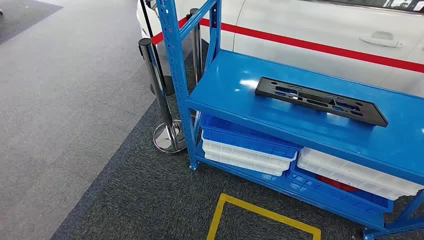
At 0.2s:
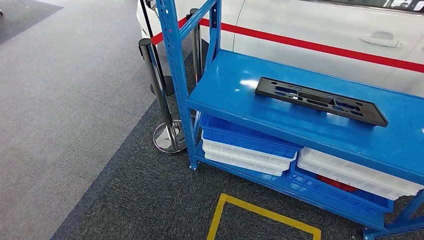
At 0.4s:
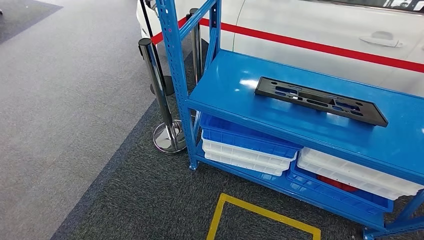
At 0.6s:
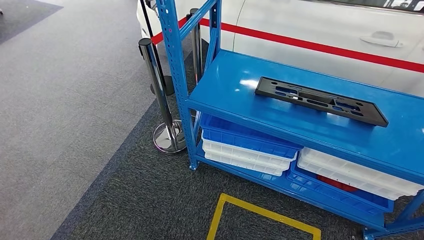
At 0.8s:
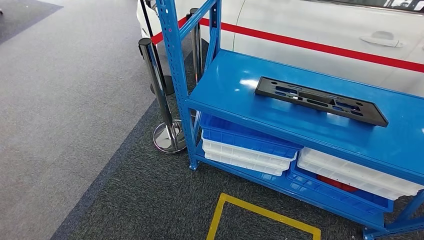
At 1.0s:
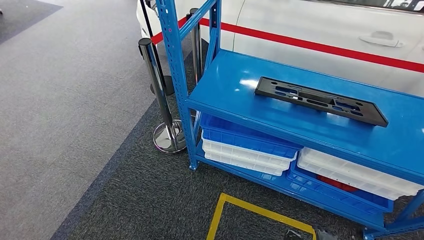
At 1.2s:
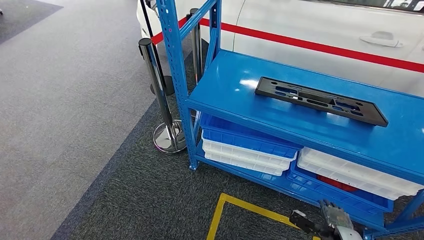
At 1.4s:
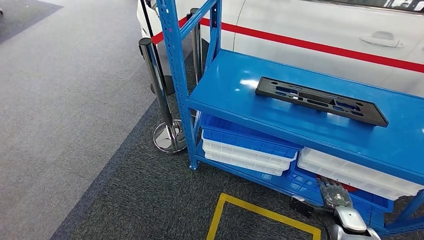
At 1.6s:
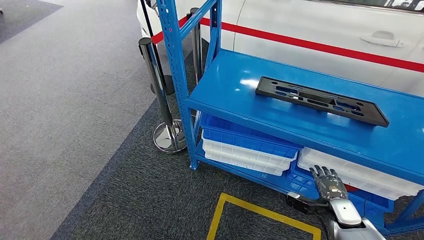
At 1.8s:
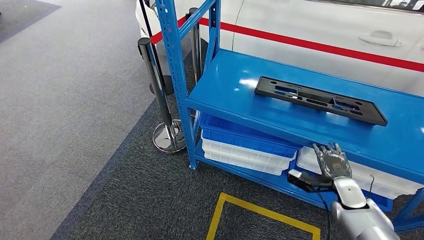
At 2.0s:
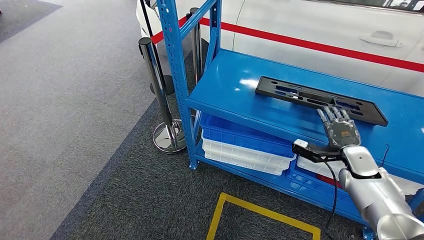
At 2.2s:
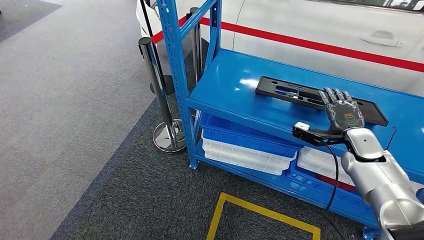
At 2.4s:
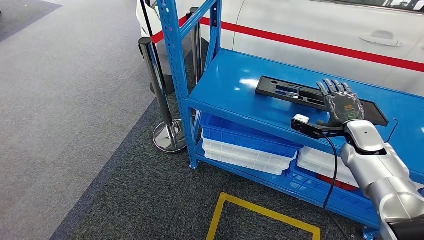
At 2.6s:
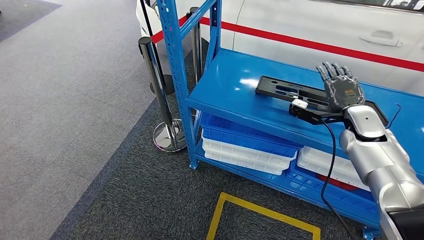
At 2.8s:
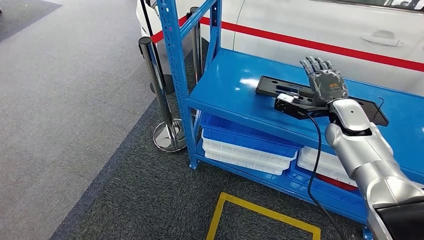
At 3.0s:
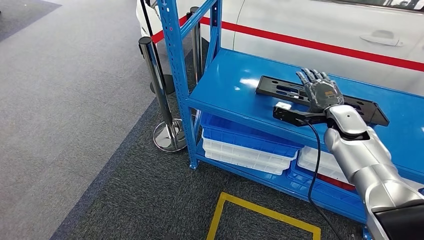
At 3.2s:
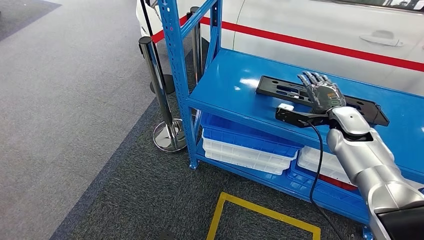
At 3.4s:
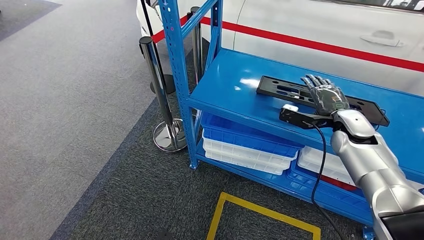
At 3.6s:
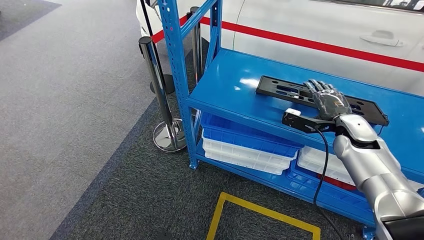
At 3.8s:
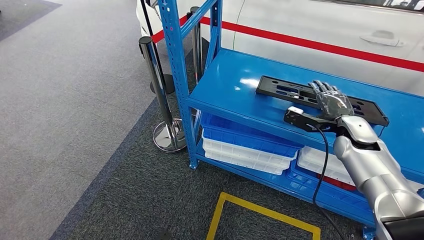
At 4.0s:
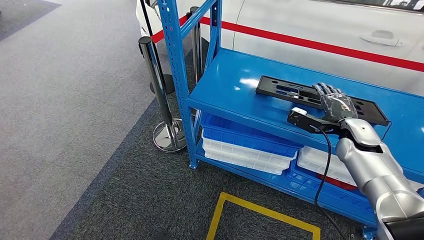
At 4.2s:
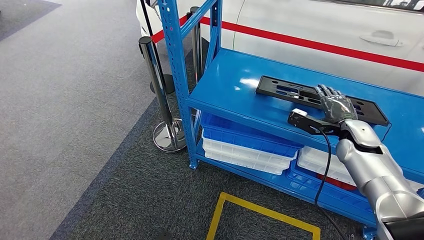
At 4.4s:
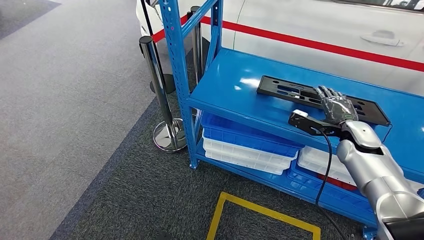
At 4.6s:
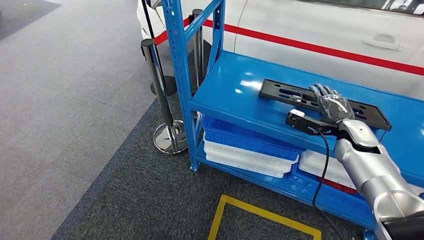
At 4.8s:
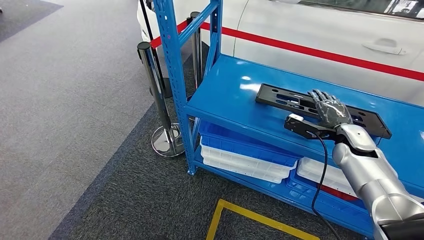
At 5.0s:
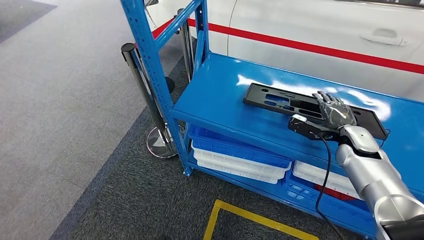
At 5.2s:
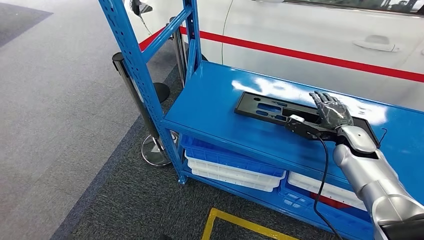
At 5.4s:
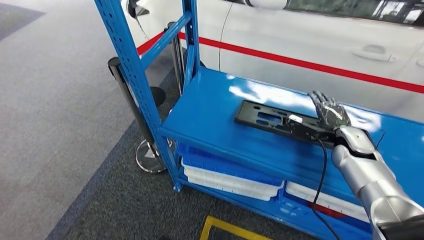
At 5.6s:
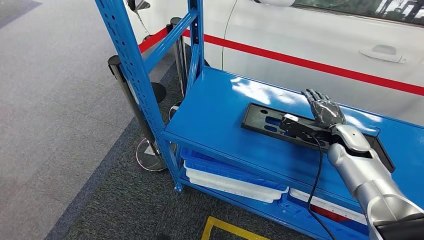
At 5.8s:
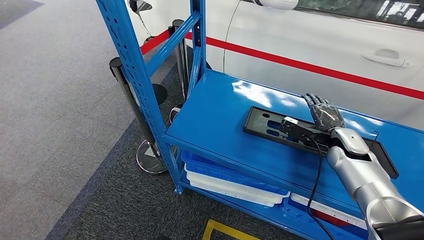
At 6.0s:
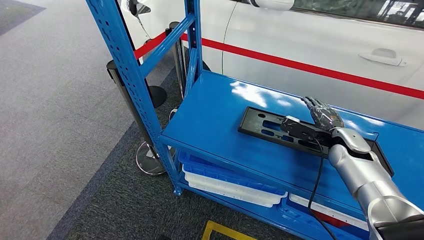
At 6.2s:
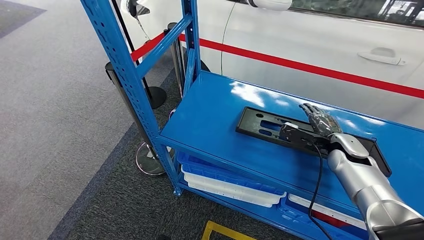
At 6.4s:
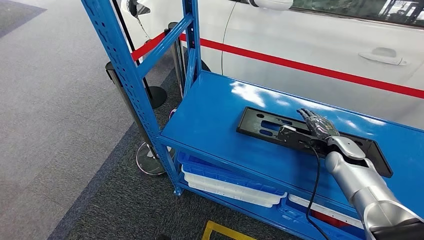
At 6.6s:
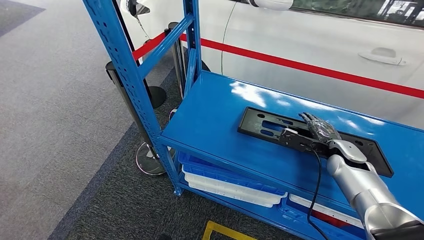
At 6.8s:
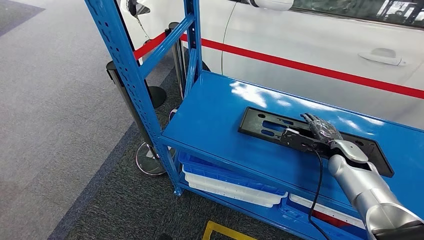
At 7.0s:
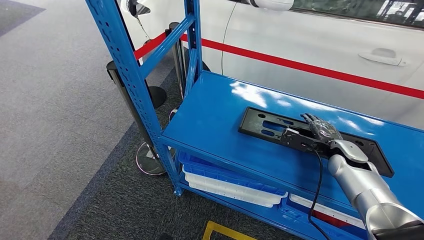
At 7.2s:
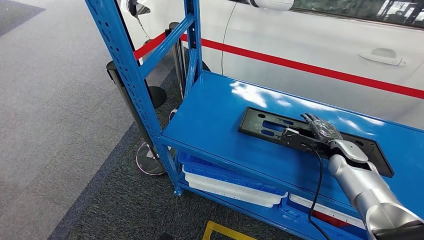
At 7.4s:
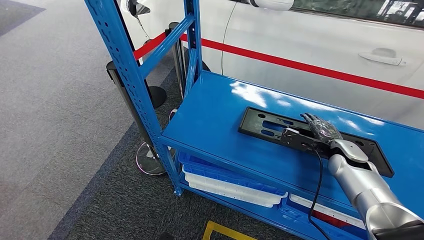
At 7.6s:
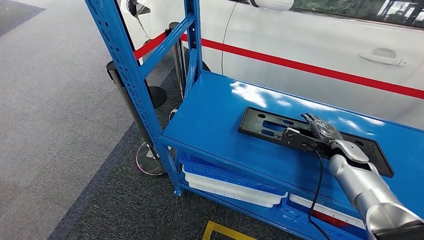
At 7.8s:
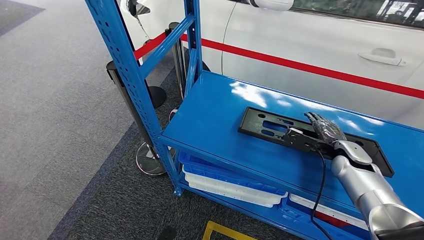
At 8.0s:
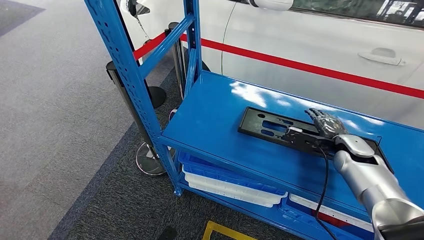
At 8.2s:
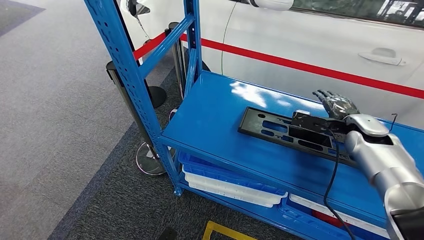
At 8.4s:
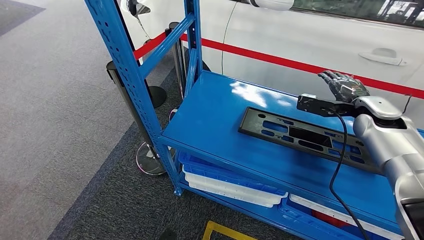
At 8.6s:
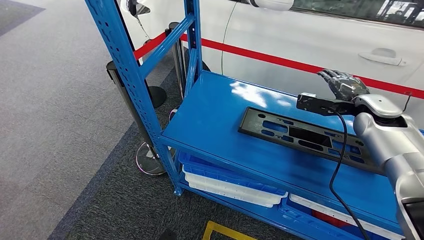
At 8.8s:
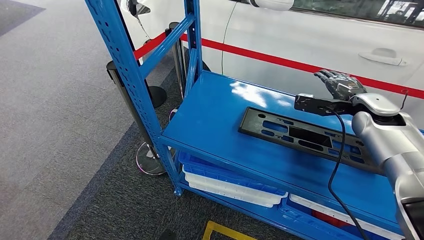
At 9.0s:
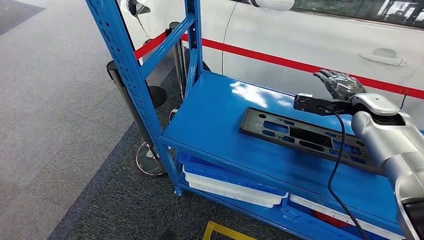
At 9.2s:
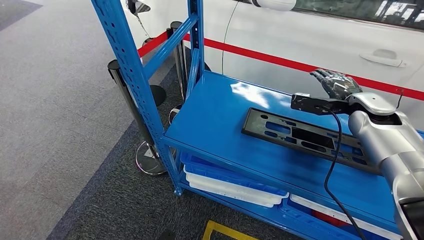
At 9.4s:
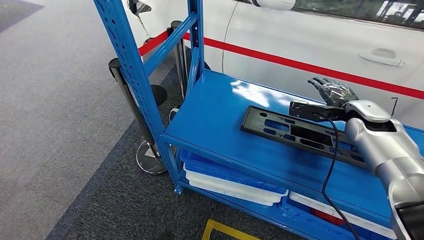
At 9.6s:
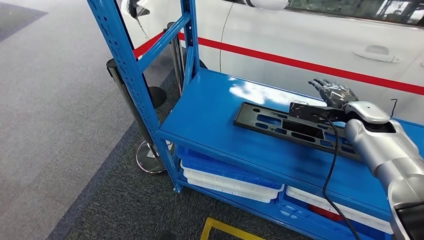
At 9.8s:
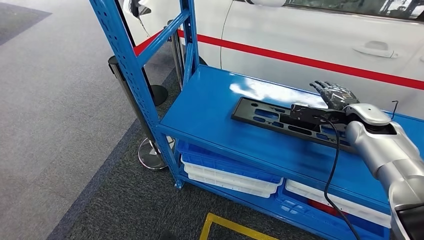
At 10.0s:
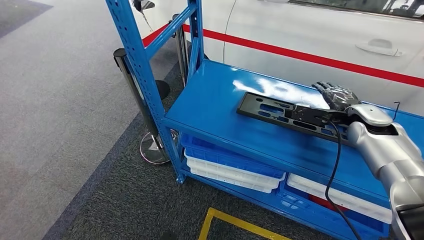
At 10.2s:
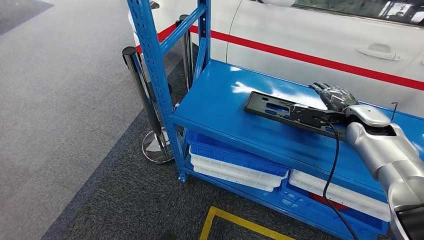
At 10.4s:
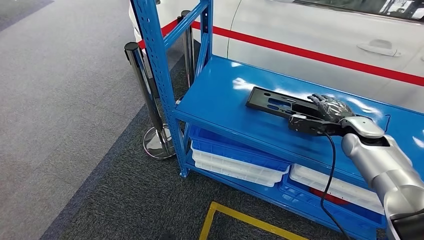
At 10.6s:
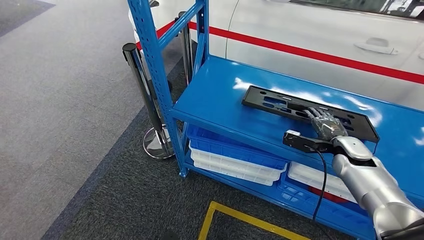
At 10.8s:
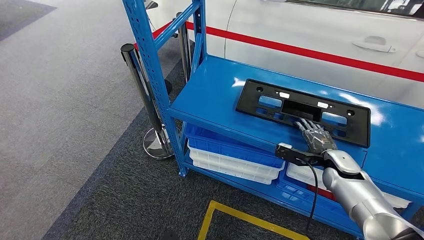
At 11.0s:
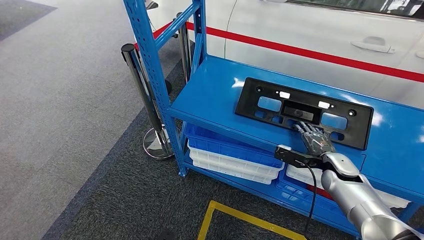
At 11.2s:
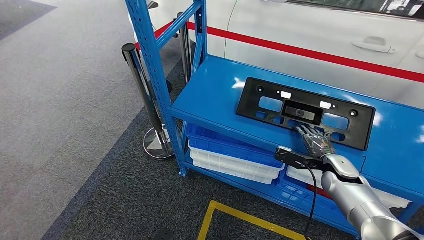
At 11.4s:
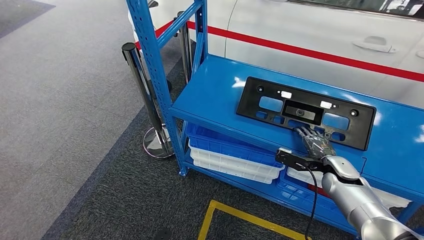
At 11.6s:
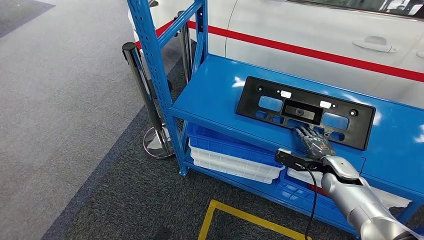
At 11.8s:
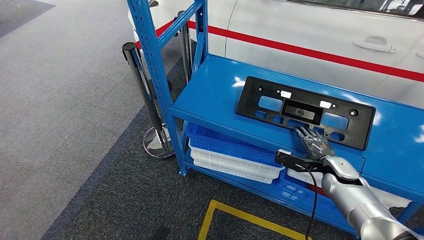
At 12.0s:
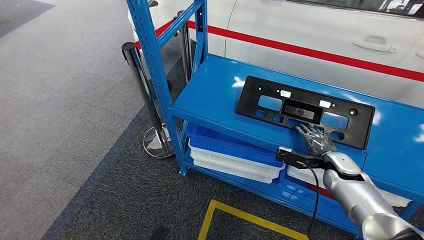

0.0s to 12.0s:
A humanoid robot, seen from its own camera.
1.6s to 3.0s: The right hand moves upward and forward, roughly 25 cm.
3.0s to 4.4s: The right hand ends up roughly 5 cm from where it was.
6.0s to 7.6s: There are only small adjustments of the hands.
7.6s to 9.0s: The right hand heads upward, covering some 15 cm.

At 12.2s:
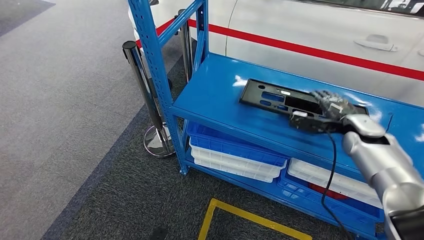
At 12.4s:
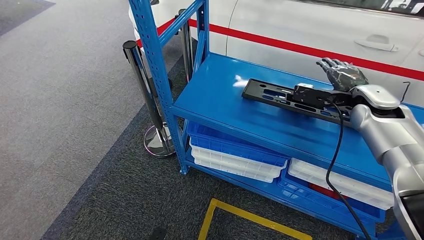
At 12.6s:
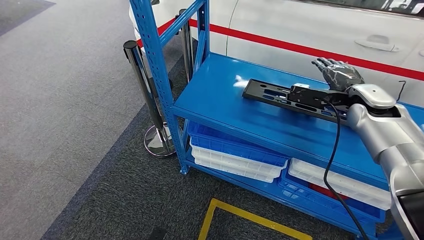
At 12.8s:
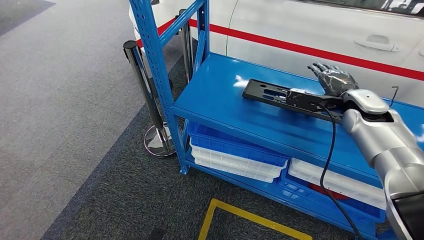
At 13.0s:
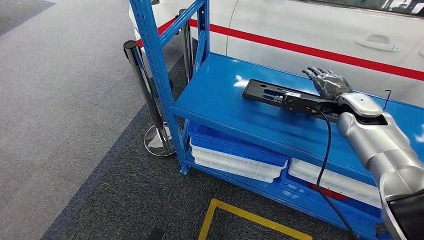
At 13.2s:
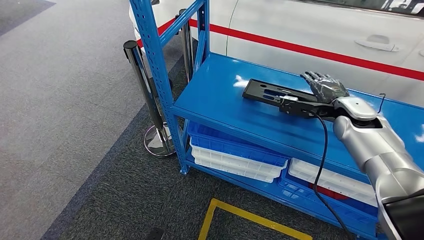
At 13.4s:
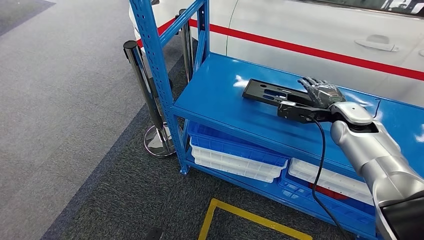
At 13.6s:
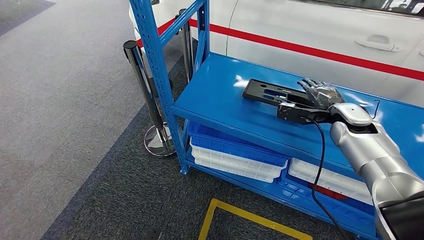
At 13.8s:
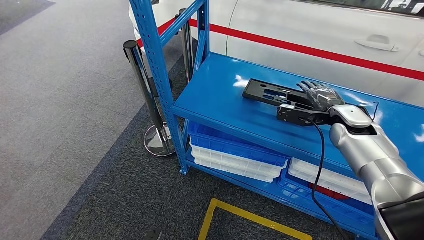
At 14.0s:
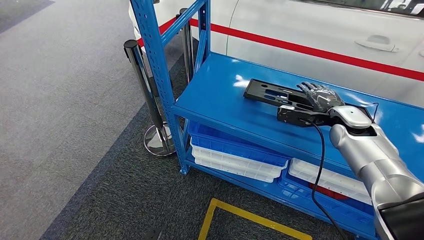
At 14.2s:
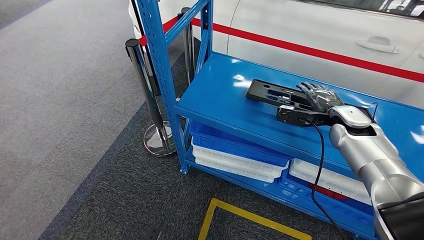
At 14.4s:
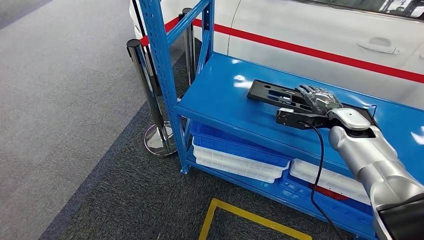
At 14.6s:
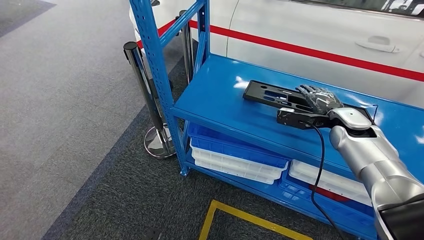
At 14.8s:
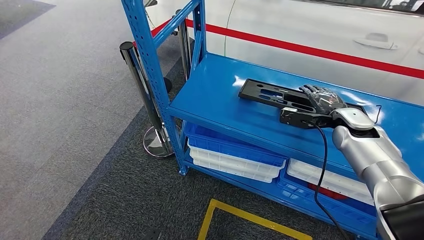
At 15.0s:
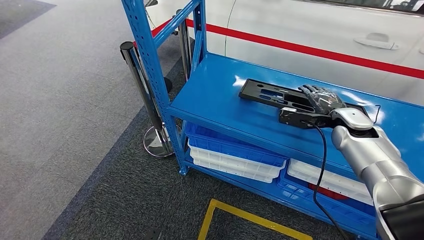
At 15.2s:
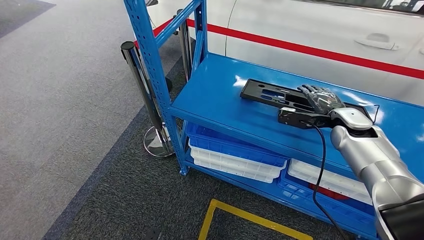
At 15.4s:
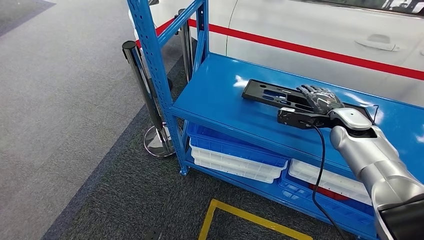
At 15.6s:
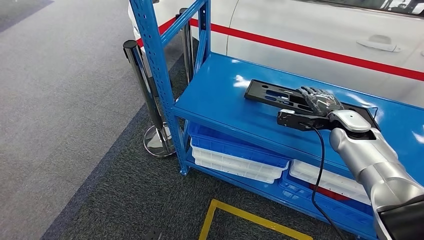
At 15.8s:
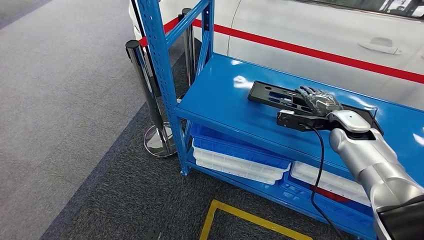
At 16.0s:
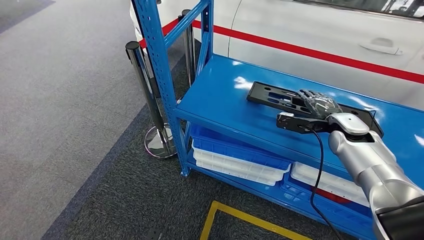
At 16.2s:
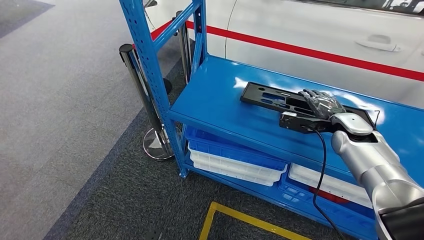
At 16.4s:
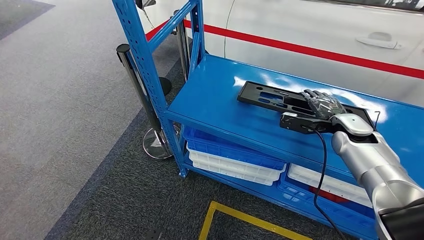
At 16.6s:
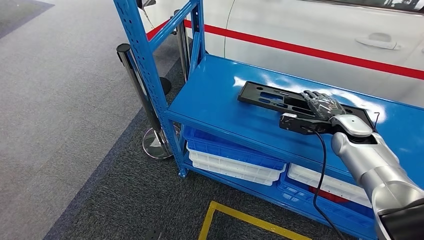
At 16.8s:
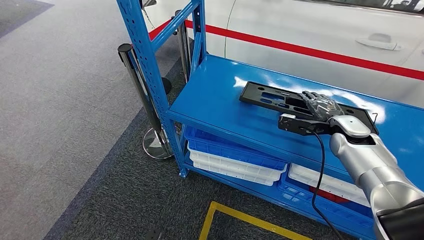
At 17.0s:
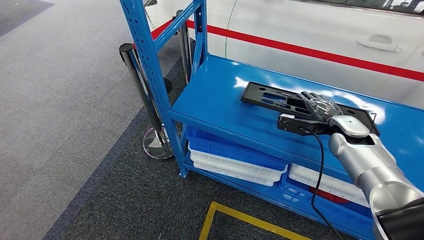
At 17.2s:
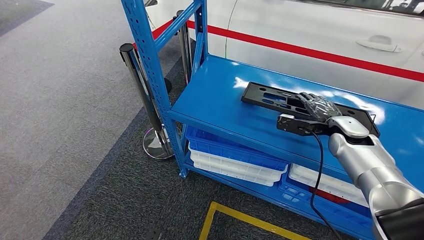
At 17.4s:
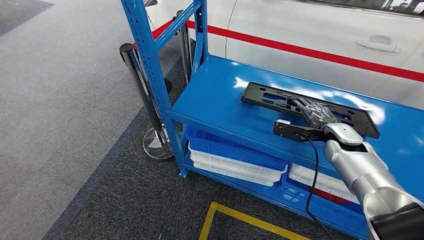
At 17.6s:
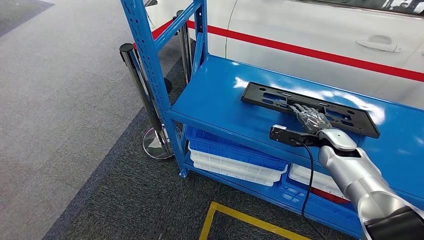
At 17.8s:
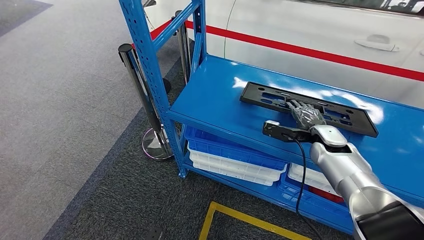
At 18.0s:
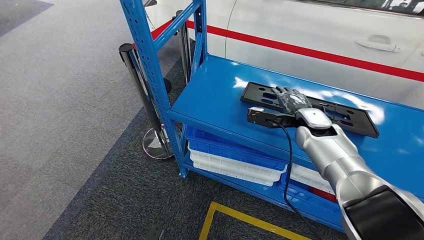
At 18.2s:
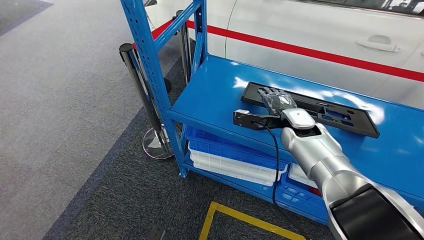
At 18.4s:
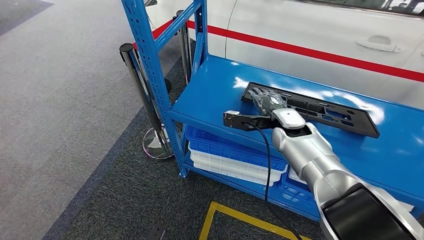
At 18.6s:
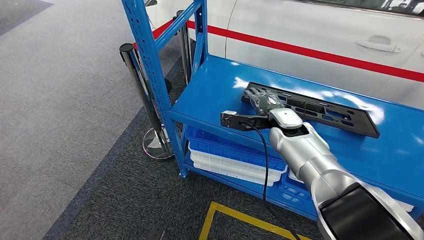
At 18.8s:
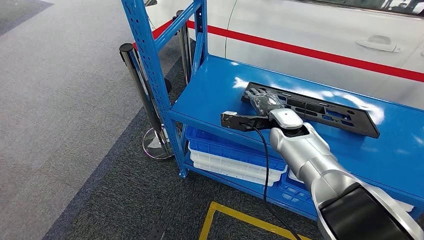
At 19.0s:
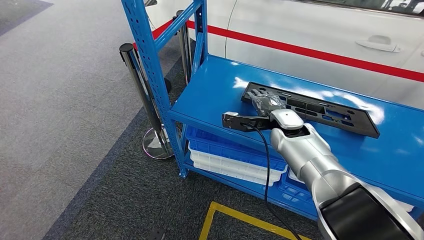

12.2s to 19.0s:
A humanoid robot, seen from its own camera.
12.2s to 13.6s: The right hand travels upward and back again, approximately 10 cm each way.
13.6s to 15.0s: Both hands stay put.
15.0s to 16.2s: The hands stay close to where they were, moving slightly.
16.2s to 17.6s: The right hand moves approximately 5 cm.
17.6s to 19.0s: The right hand shifts approximately 15 cm to the left.
